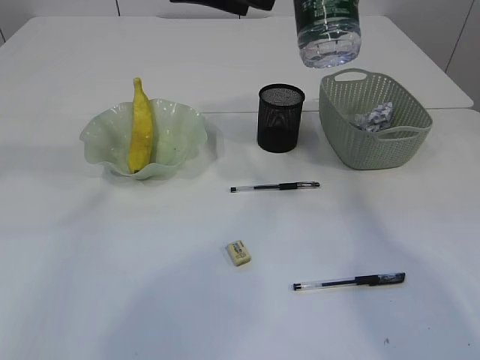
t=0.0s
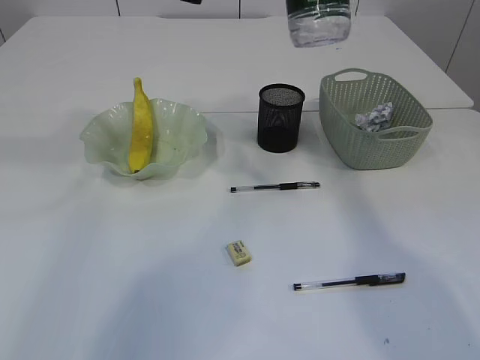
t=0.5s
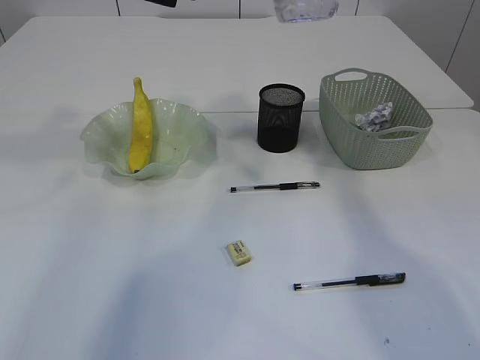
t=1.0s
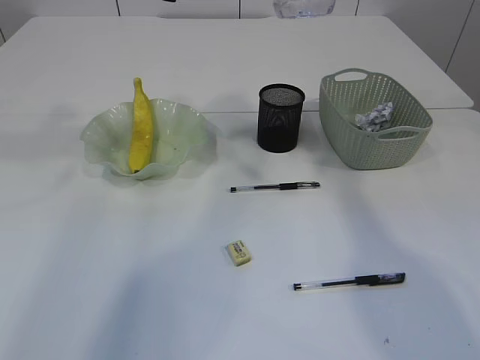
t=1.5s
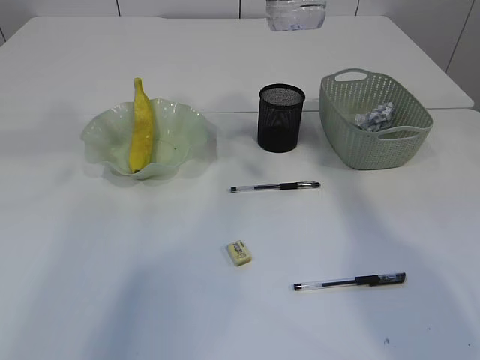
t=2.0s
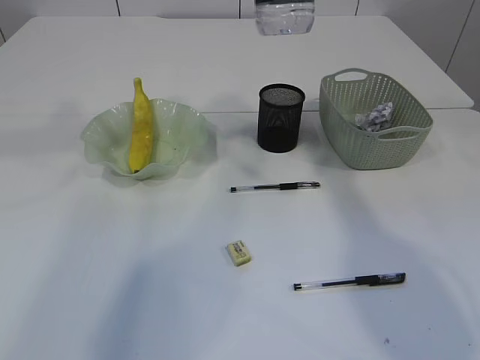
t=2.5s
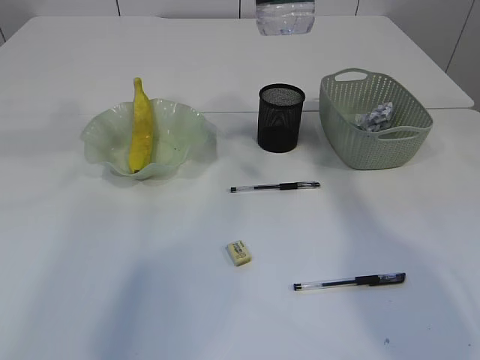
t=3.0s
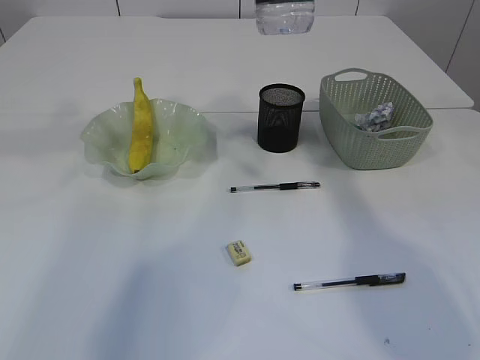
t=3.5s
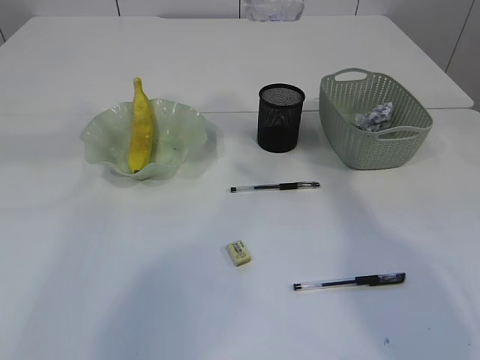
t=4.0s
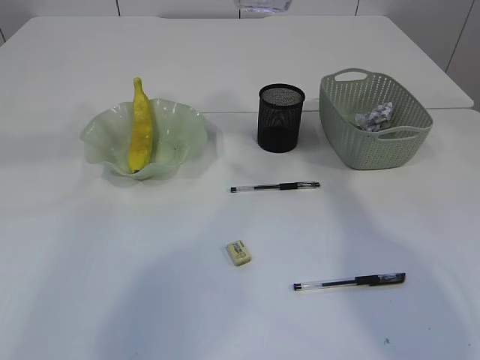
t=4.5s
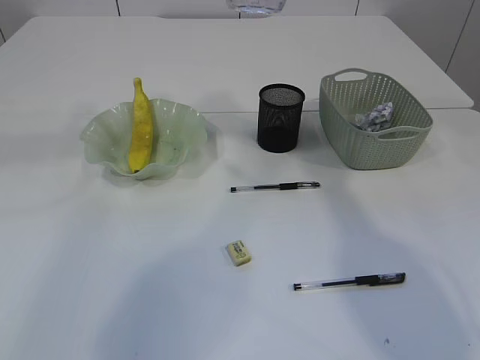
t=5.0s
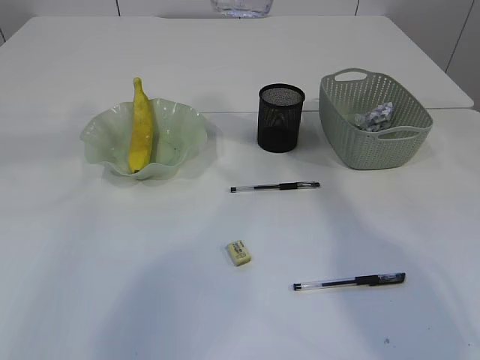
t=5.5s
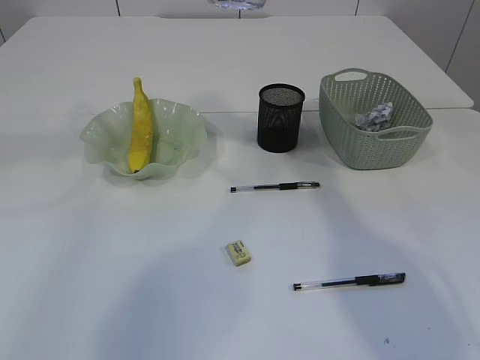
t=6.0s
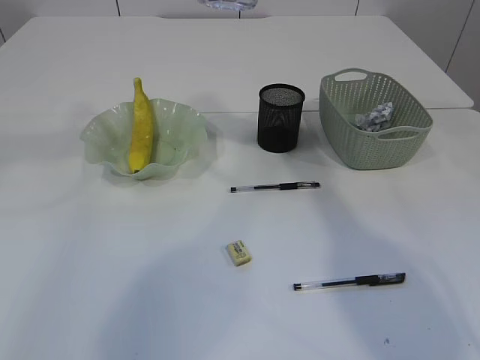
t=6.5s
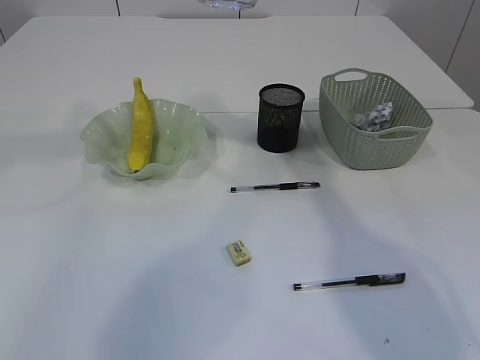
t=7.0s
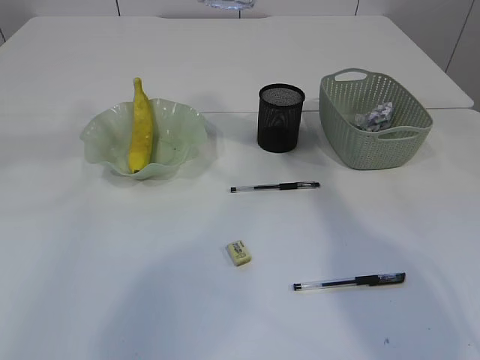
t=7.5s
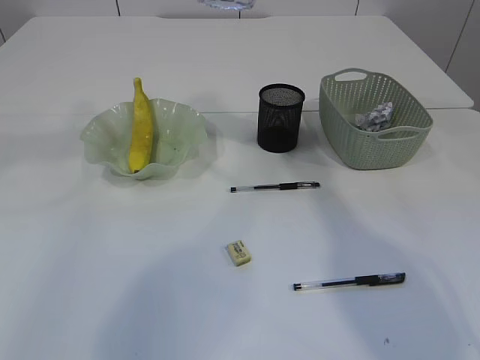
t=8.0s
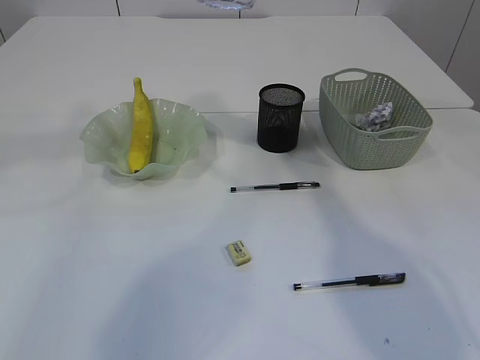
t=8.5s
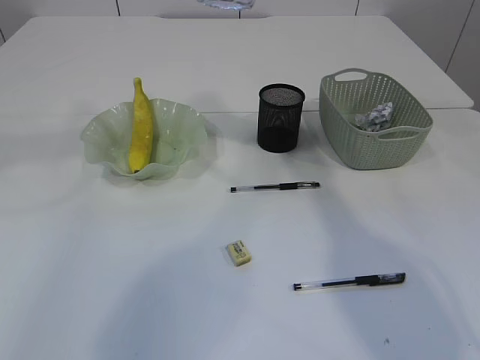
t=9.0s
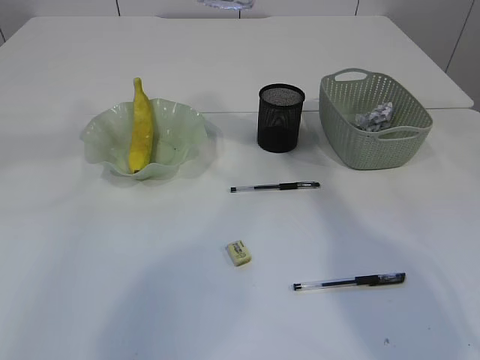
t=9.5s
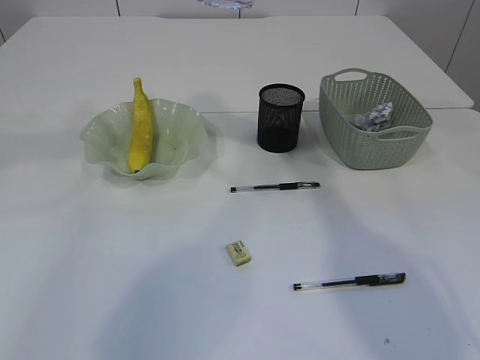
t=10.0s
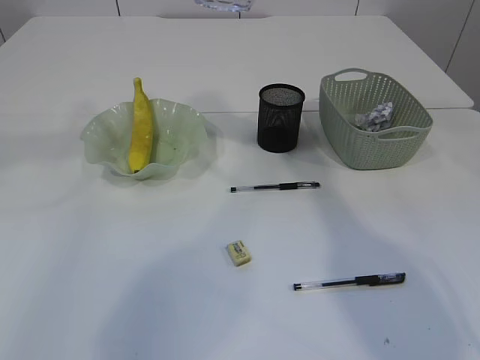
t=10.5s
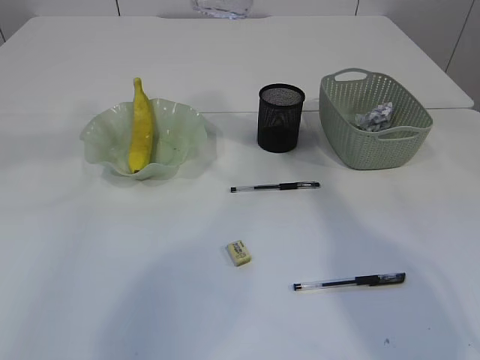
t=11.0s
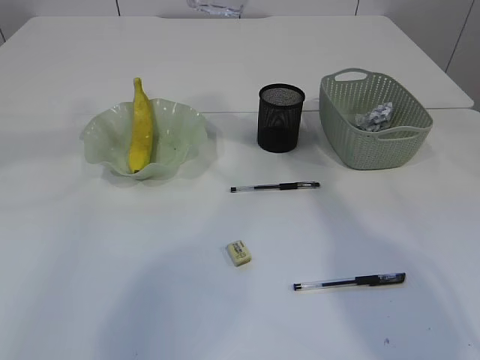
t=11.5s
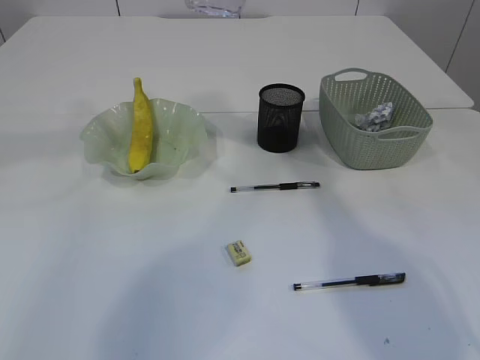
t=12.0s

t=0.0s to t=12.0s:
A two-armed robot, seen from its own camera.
t=0.0s to t=2.0s: The left gripper goes about 5 cm to the left.
t=6.0s to t=10.0s: Neither gripper changes place.

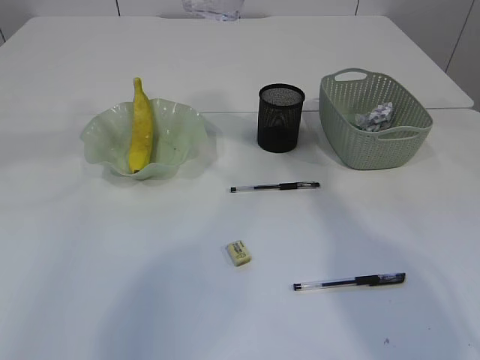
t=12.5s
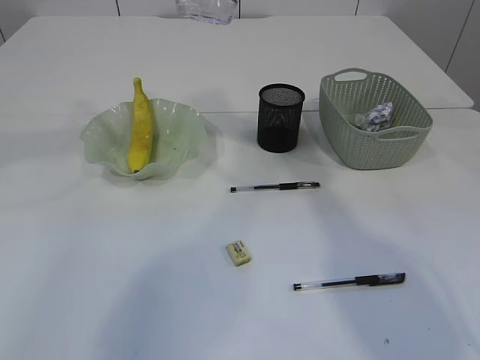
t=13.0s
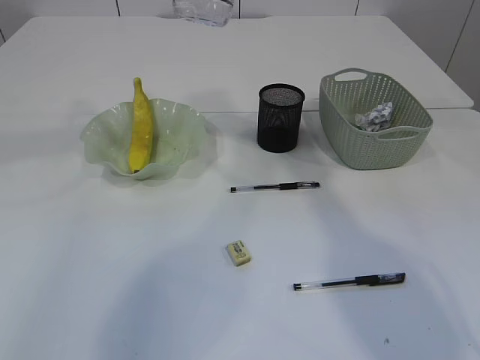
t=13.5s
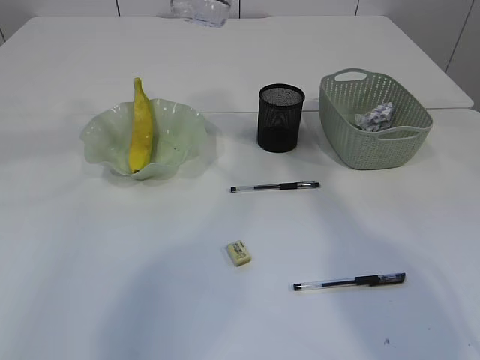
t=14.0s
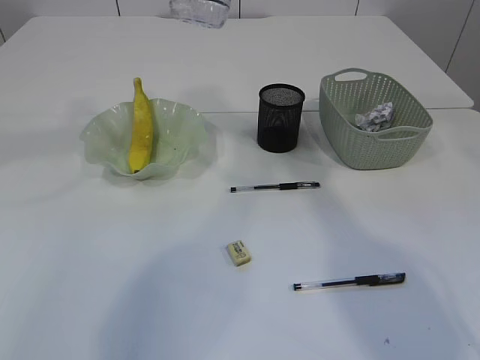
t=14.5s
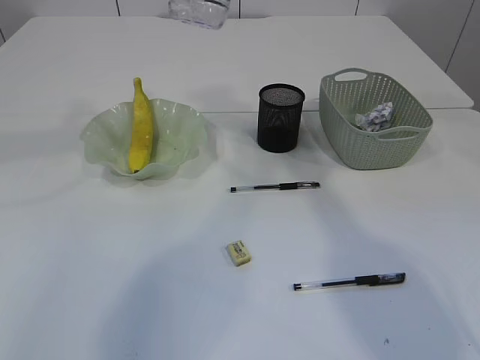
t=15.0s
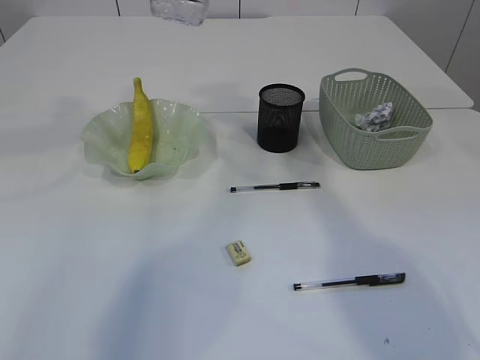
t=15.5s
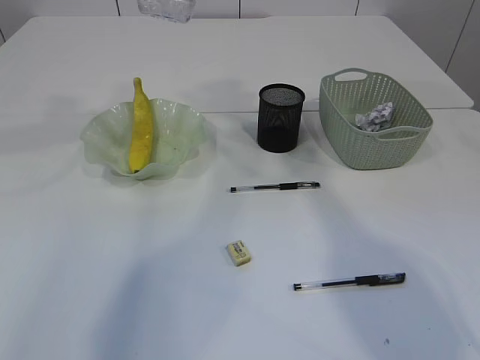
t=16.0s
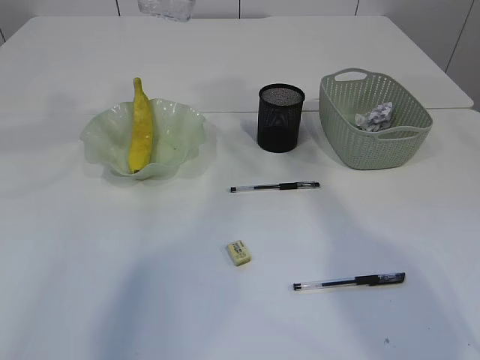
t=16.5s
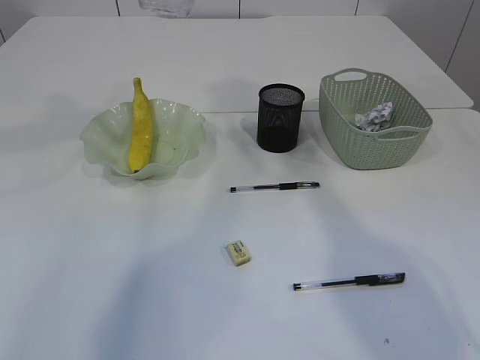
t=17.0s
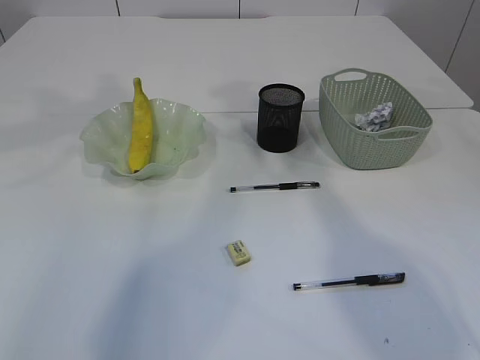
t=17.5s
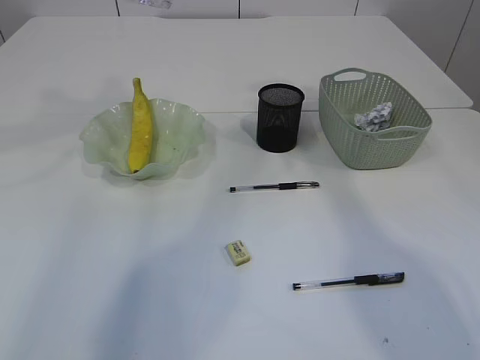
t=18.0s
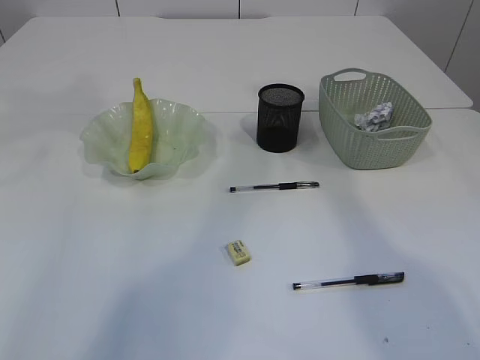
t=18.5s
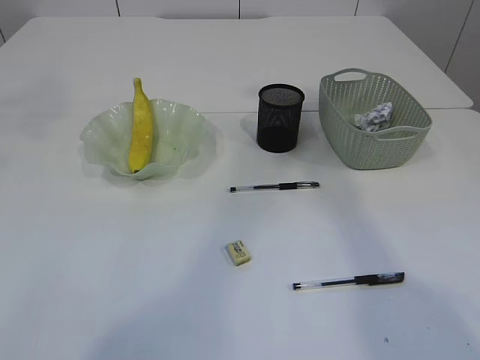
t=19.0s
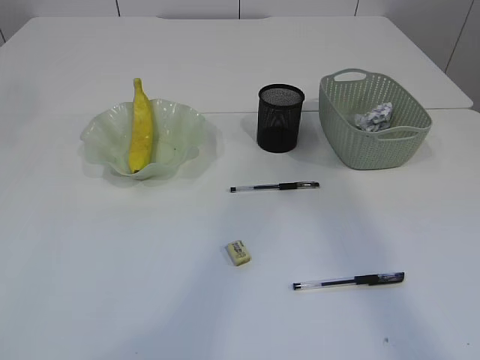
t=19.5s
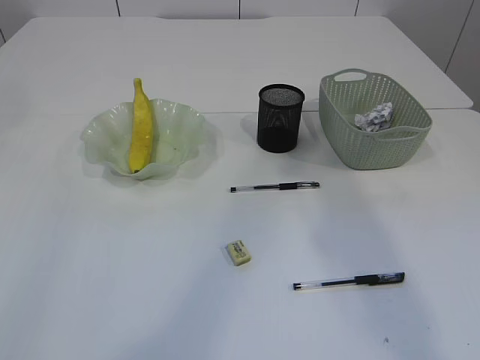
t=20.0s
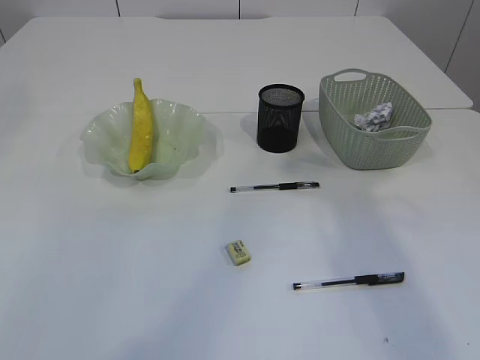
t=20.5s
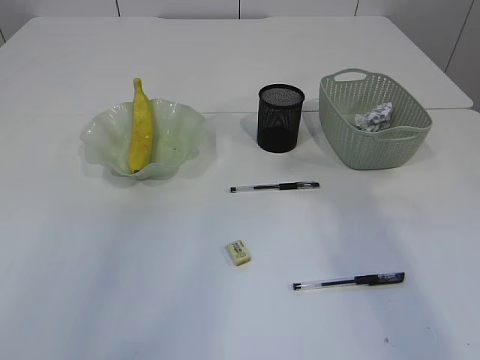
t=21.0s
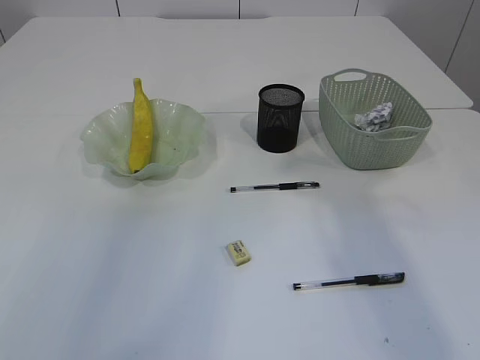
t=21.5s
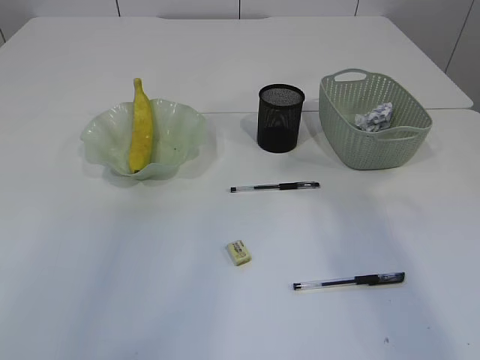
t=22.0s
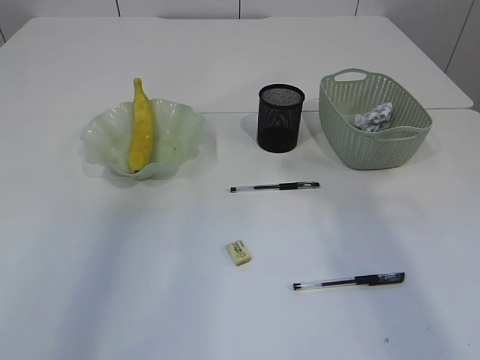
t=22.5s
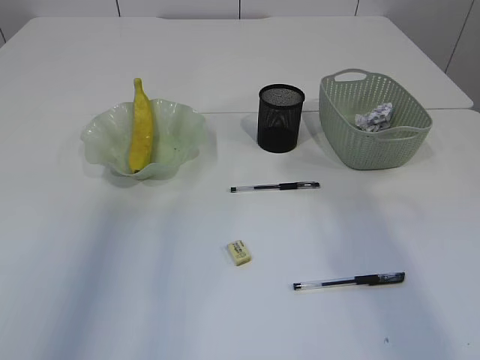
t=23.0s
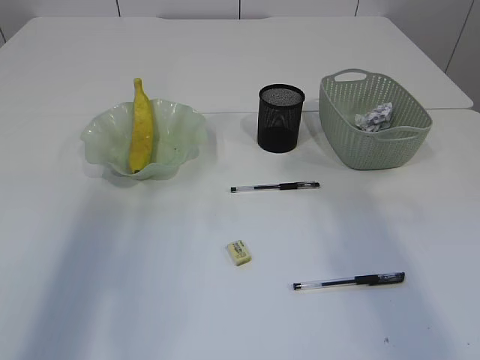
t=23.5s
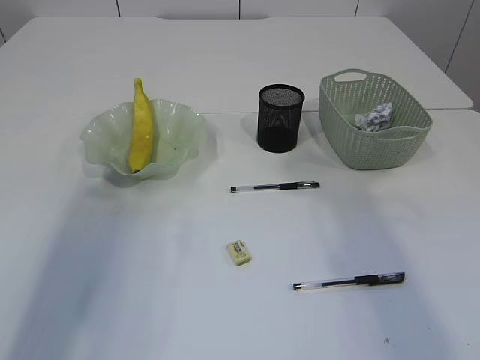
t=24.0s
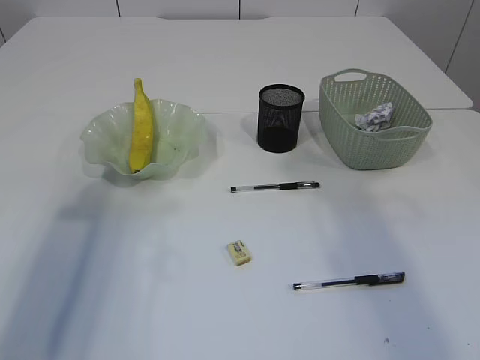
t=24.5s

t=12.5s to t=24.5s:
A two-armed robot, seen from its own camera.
t=18.5s to t=20.5s: The left gripper goes approximately 10 cm backward and upward.
t=22.5s to t=24.5s: The left gripper shifts approximately 20 cm downward and backward.

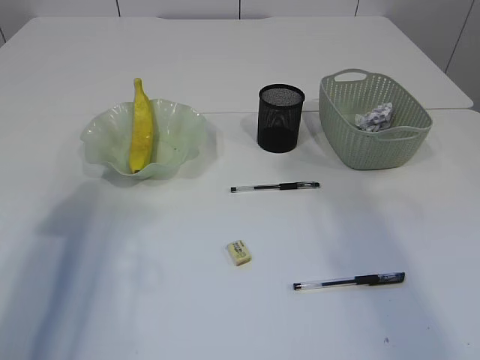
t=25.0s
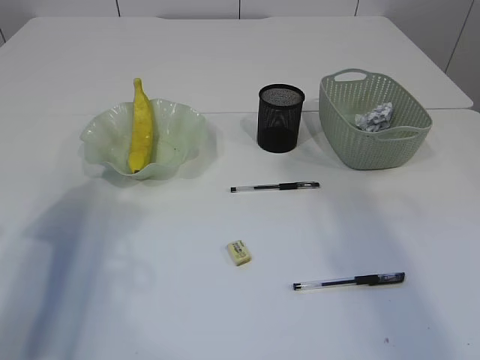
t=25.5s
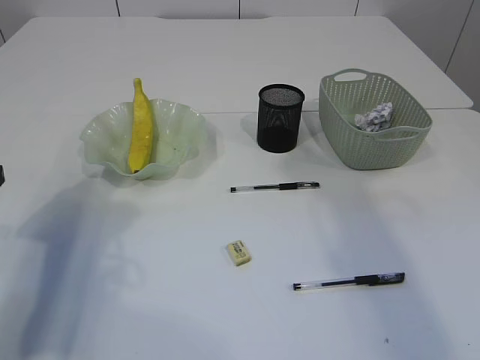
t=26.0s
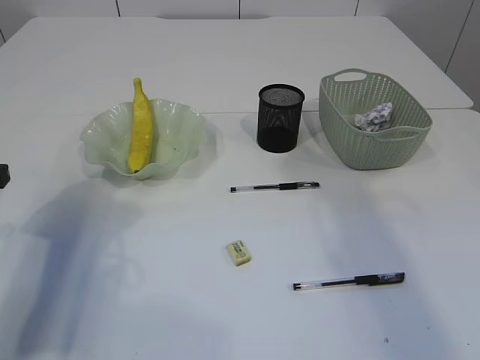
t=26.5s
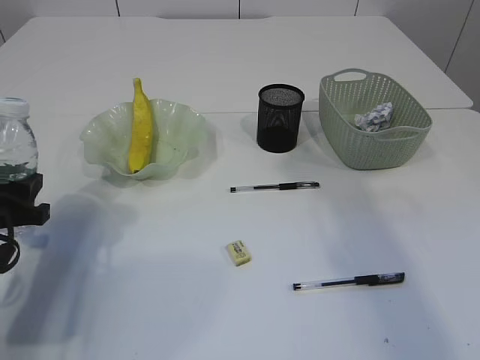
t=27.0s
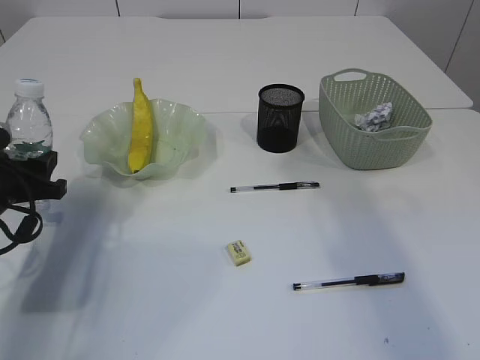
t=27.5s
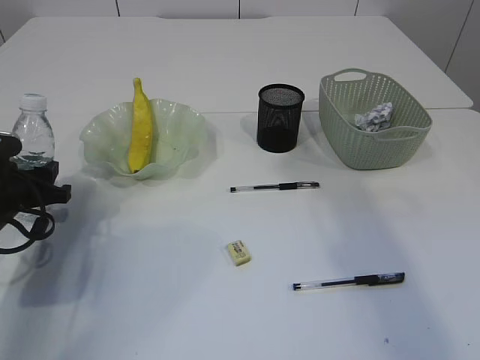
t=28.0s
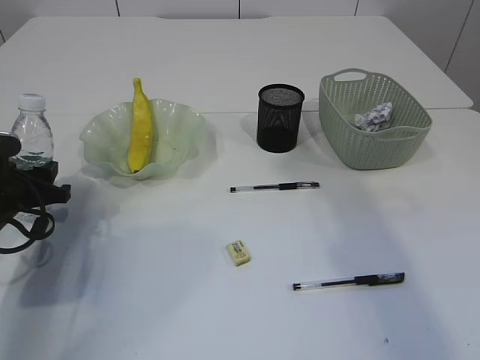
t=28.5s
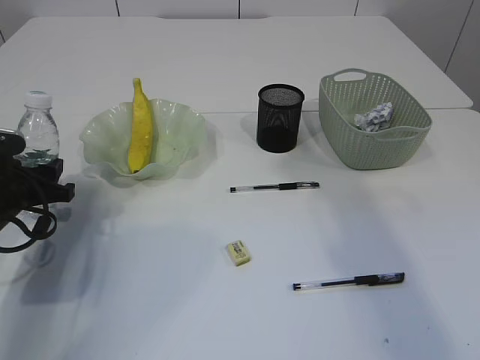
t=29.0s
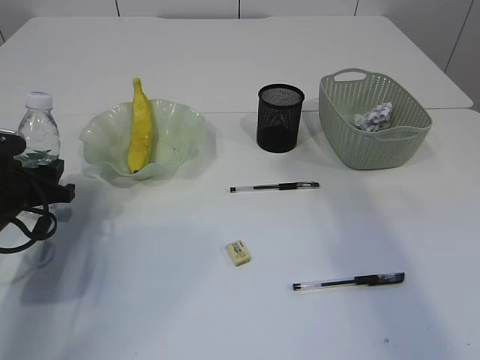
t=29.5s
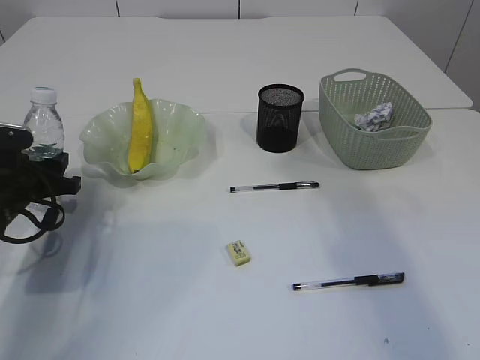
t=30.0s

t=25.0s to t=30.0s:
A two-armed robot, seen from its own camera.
t=25.0s to t=27.5s: The left gripper heads downward and forward, covering approximately 15 cm.
t=27.5s to t=30.0s: The grippers stay close to where they were, moving slightly.
